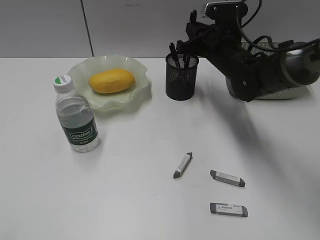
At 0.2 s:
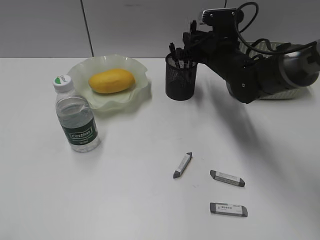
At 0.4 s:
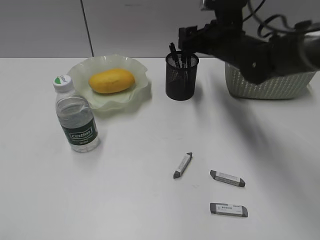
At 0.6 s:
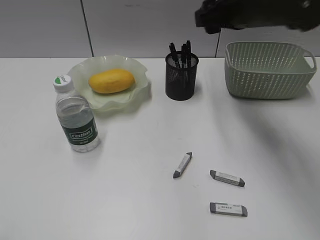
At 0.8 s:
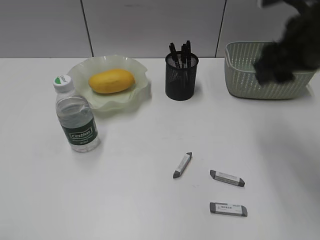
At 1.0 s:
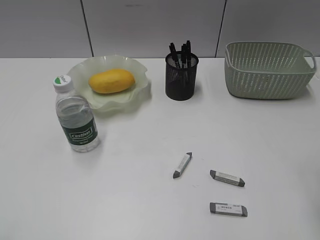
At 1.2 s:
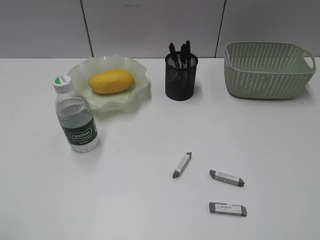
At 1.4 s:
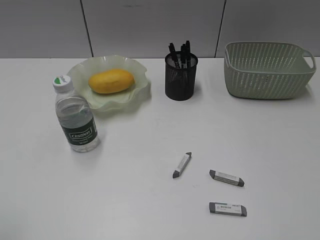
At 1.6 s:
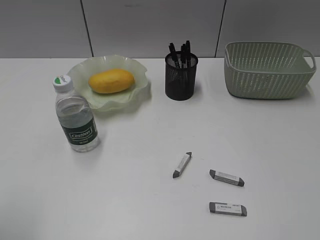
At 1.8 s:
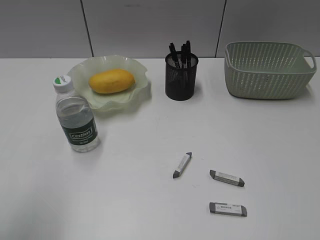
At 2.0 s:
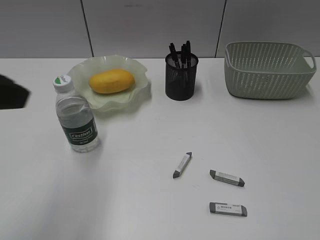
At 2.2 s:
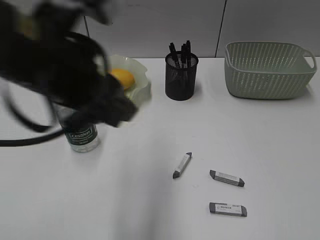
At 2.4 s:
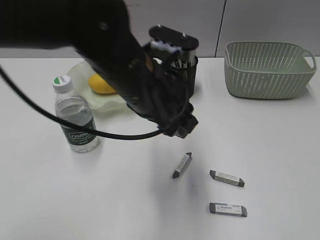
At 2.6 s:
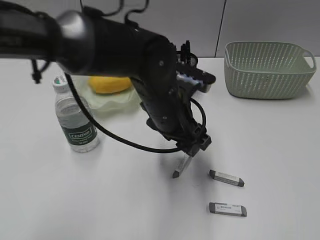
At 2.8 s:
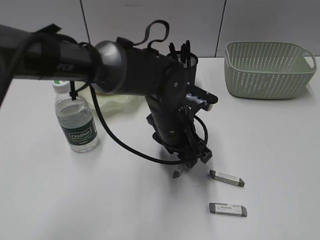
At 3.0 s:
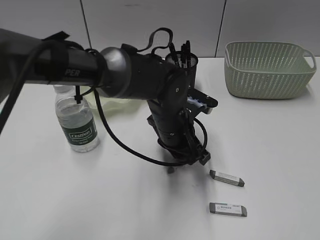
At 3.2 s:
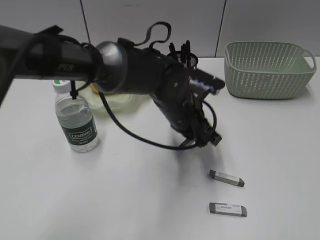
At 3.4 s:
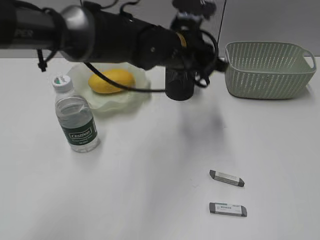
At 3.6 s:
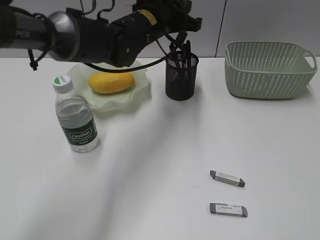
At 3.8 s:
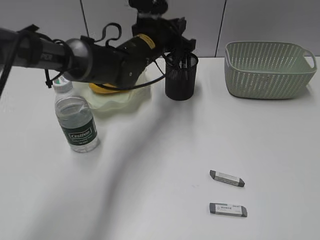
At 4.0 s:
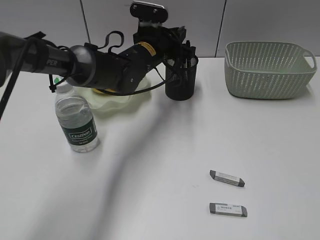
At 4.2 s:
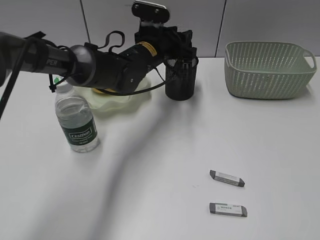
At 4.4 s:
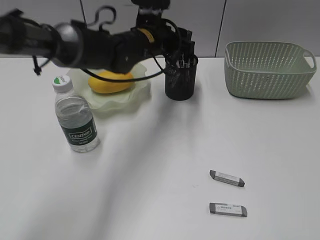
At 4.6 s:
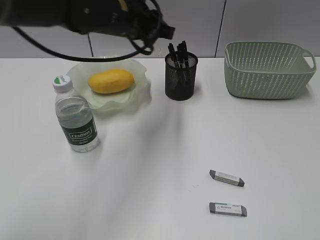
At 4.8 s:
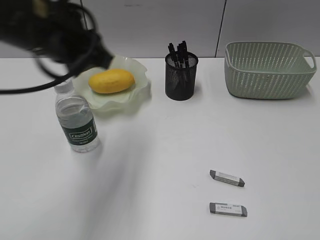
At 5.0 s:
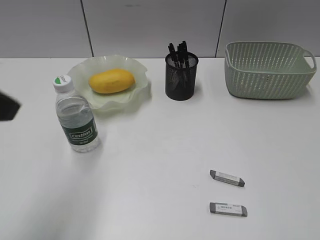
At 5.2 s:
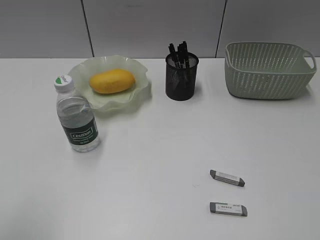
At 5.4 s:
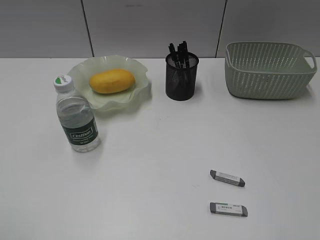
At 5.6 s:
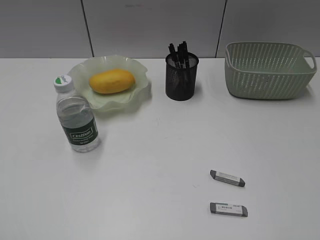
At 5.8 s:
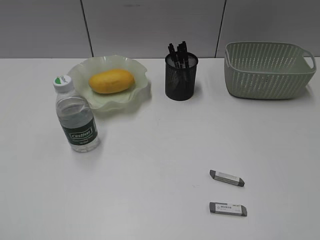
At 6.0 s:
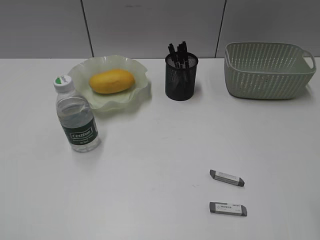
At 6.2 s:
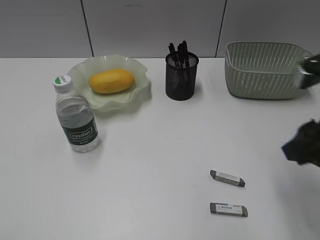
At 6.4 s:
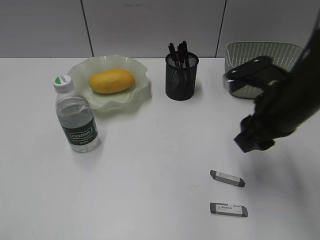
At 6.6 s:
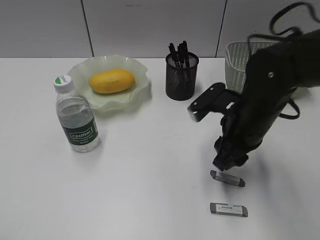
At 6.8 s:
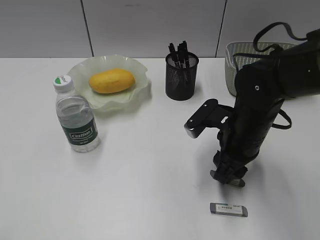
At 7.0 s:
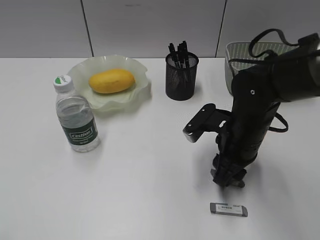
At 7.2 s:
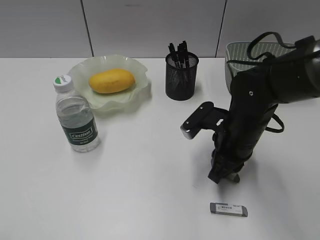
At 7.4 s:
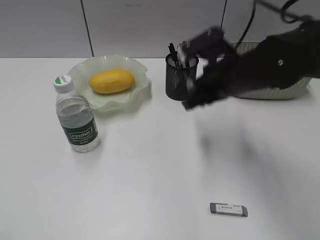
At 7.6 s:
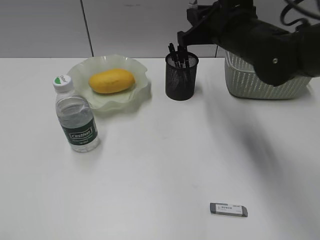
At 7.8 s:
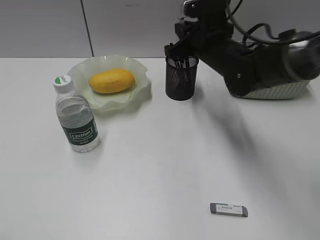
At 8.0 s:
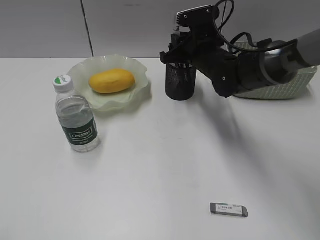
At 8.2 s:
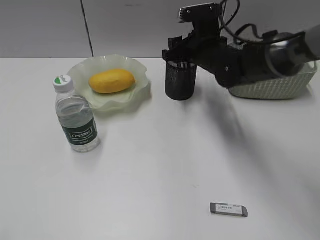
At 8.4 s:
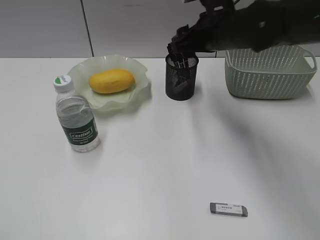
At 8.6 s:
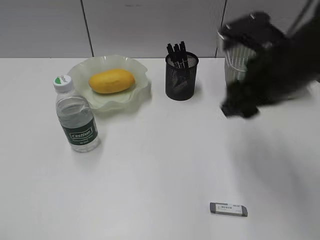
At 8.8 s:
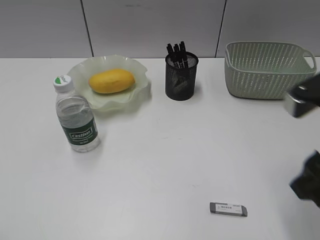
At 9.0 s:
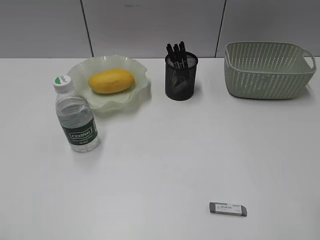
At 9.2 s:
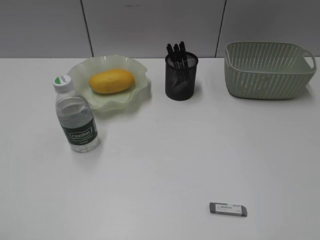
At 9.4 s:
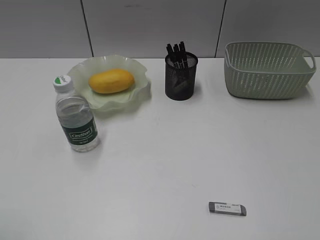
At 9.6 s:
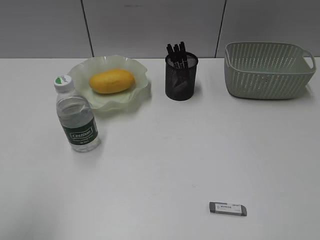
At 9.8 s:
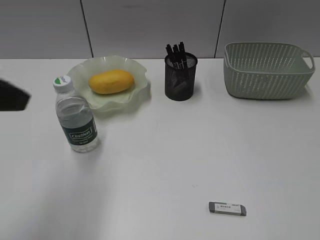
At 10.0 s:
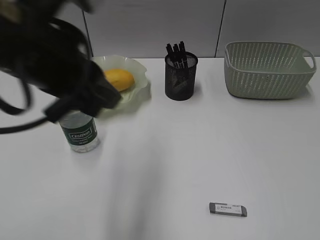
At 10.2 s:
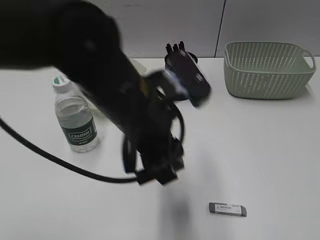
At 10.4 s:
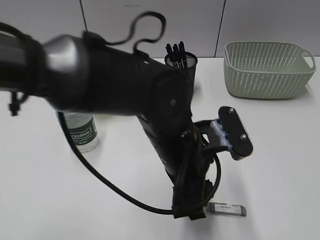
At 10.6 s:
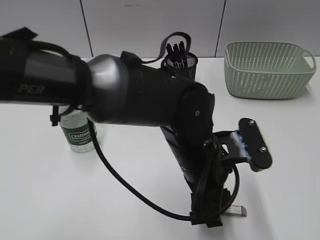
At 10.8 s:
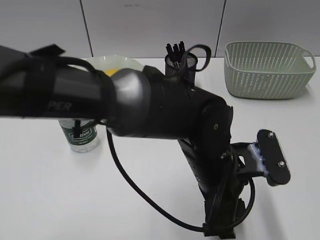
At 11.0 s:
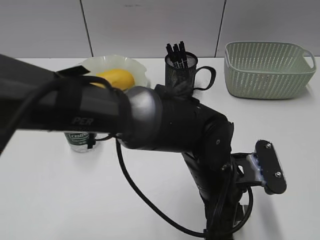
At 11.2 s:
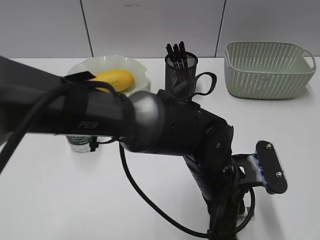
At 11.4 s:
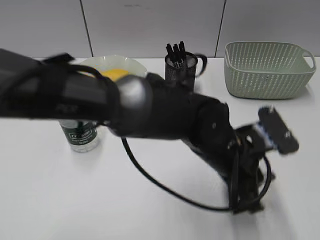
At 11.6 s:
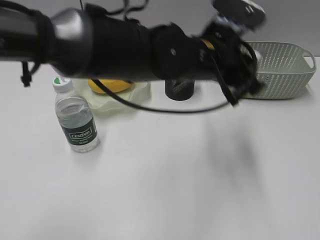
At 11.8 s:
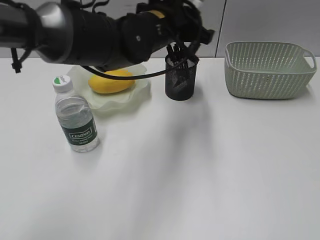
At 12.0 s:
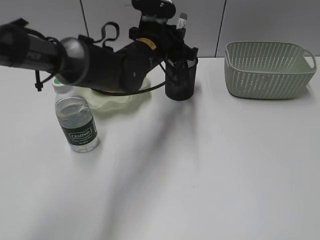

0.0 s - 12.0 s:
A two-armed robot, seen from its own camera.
Step, 0.6 s - 3.0 s: Grasp the eraser with left gripper.
Step, 3.2 s - 4.2 s: Place the eraser in pen holder with left gripper.
Step, 4.4 s - 7.2 s: Grasp the eraser with right gripper.
Step, 7.4 s - 8.4 s: Place the eraser in pen holder with right gripper.
Step, 8.6 s - 11.2 s: Grasp the eraser with left gripper.
0.0 s - 1.6 s: The left gripper heads forward, covering roughly 5 cm. The right gripper goes some 50 cm backward and to the right, and opens its fingers.
1.6 s - 3.0 s: The left gripper is displaced to the right, forward and downward by approximately 40 cm.
3.0 s - 4.4 s: The left gripper travels forward and upward by some 15 cm, and opens up.
4.4 s - 6.0 s: The right gripper travels forward by roughly 5 cm; the left gripper moves backward and to the left, about 50 cm.
6.0 s - 7.6 s: The right gripper goes approximately 35 cm forward and to the left, and closes up.
7.6 s - 9.0 s: The right gripper is displaced backward and to the right by about 30 cm, and opens.
9.0 s - 10.4 s: The right gripper is displaced backward and to the right by some 10 cm. Meanwhile the left gripper is displaced to the right and forward by some 40 cm.
10.4 s - 12.0 s: The left gripper shifts some 20 cm forward, and closes its fingers.

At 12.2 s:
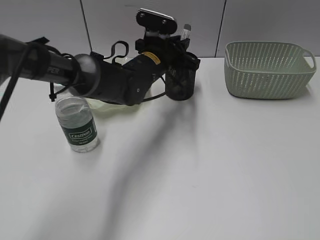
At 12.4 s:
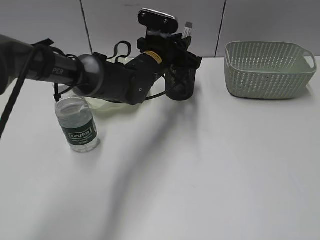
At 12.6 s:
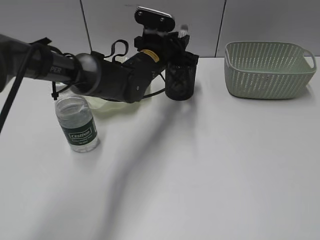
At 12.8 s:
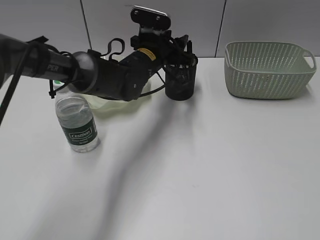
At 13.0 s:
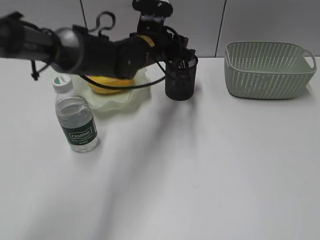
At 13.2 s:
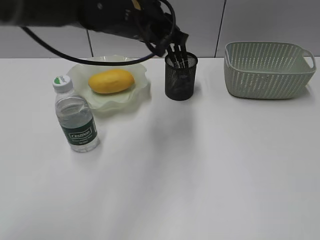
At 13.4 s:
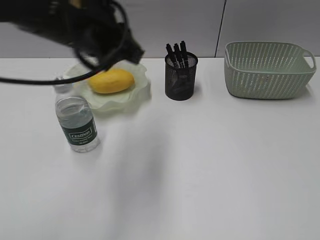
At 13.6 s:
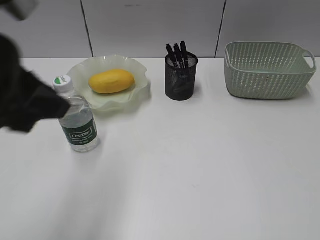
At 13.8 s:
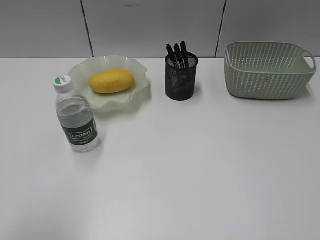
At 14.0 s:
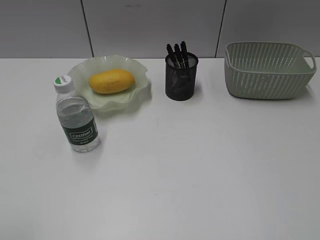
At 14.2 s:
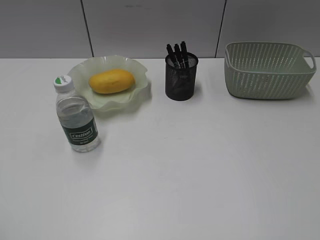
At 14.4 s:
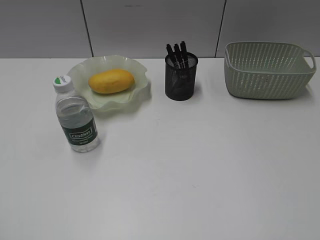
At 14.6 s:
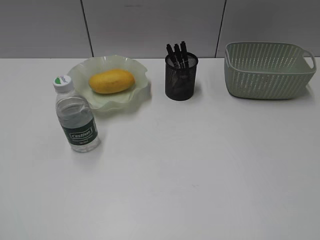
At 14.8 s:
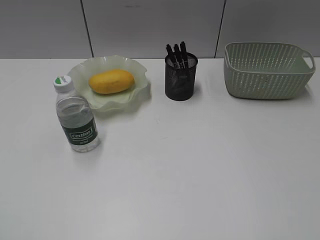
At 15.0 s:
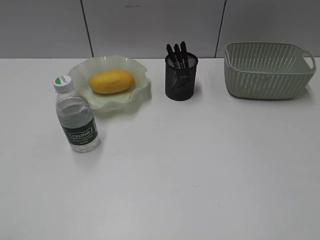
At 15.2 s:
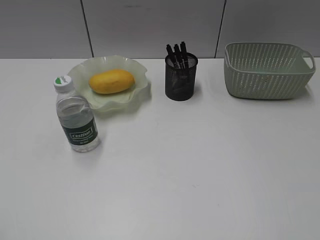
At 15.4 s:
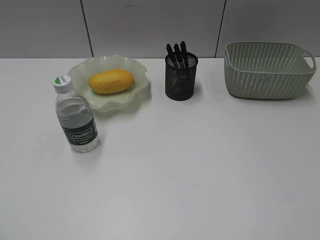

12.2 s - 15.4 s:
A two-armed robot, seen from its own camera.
12.2 s - 13.8 s: The left gripper is displaced backward, to the left and upward by roughly 40 cm, and opens.

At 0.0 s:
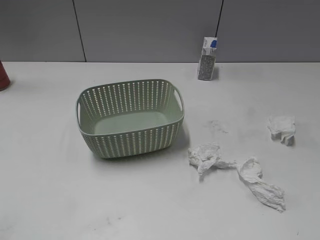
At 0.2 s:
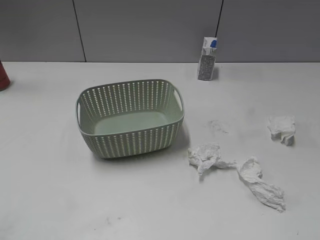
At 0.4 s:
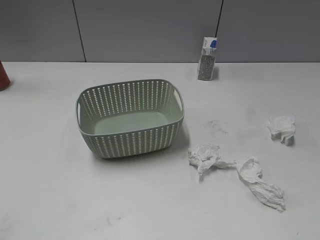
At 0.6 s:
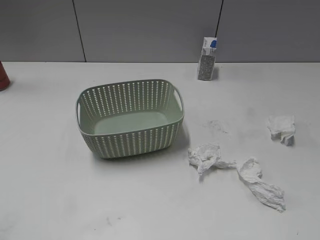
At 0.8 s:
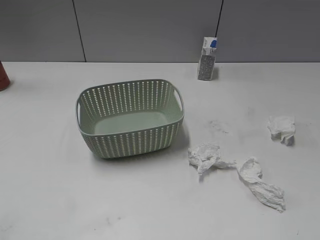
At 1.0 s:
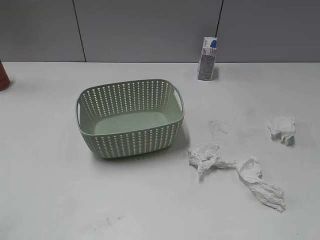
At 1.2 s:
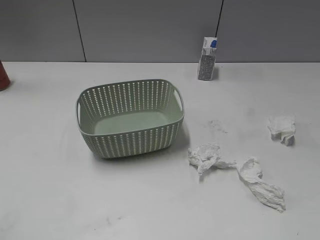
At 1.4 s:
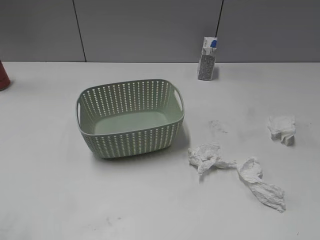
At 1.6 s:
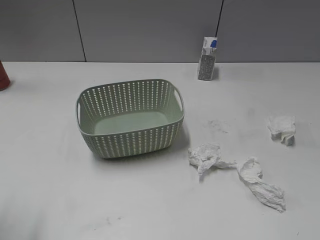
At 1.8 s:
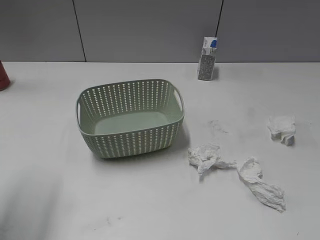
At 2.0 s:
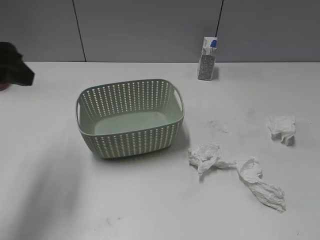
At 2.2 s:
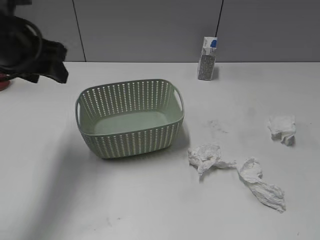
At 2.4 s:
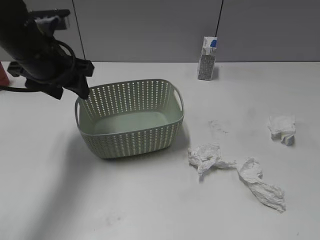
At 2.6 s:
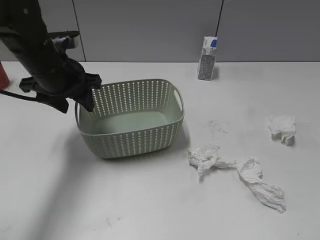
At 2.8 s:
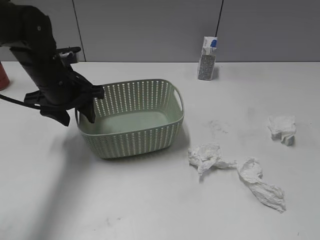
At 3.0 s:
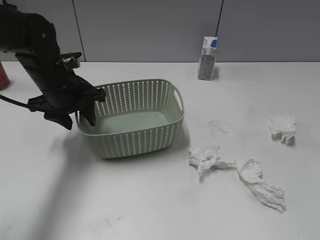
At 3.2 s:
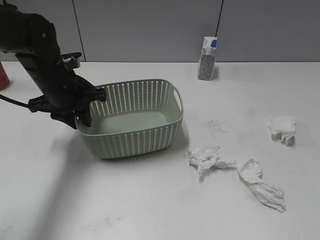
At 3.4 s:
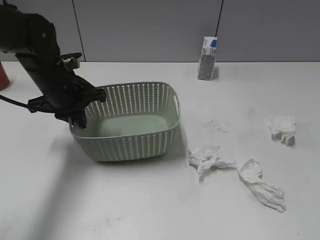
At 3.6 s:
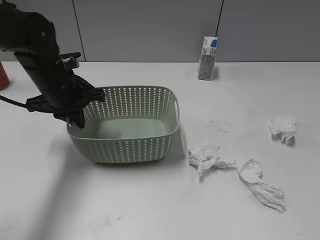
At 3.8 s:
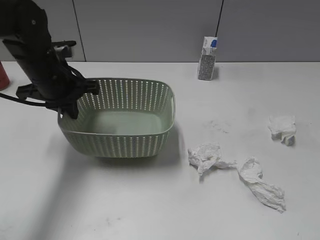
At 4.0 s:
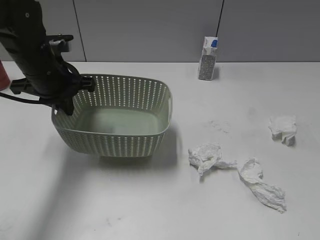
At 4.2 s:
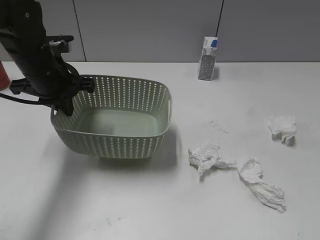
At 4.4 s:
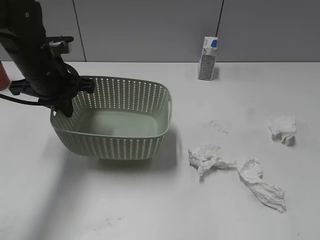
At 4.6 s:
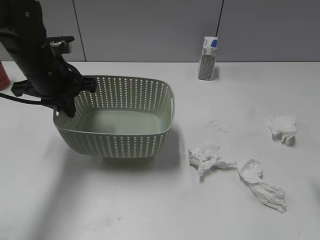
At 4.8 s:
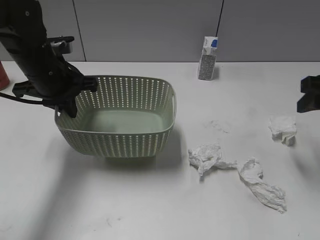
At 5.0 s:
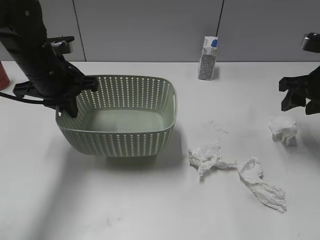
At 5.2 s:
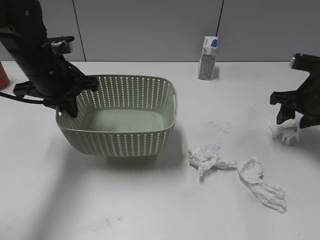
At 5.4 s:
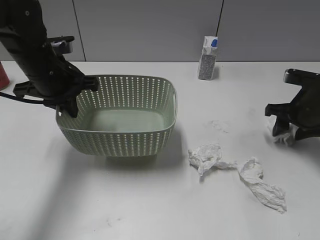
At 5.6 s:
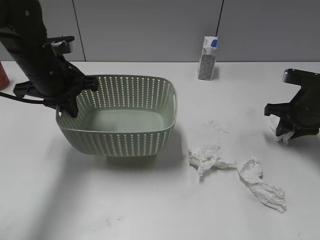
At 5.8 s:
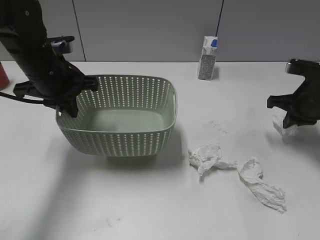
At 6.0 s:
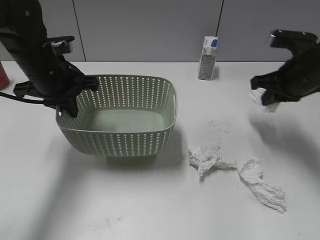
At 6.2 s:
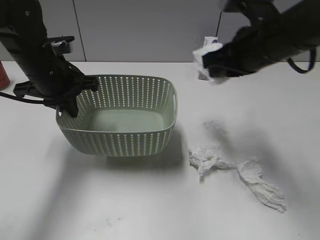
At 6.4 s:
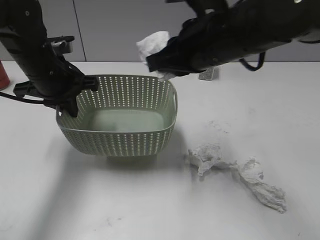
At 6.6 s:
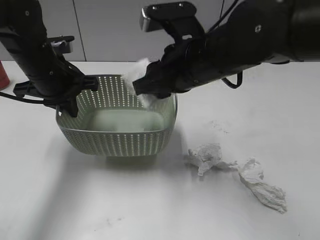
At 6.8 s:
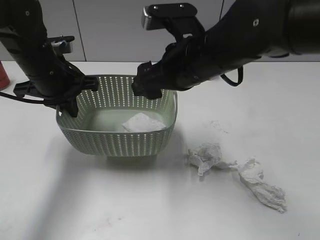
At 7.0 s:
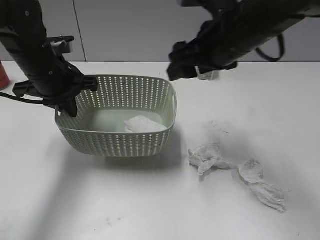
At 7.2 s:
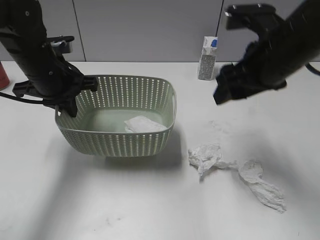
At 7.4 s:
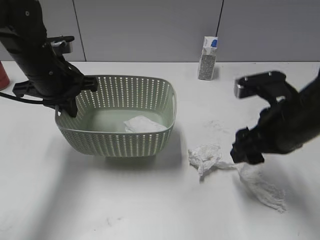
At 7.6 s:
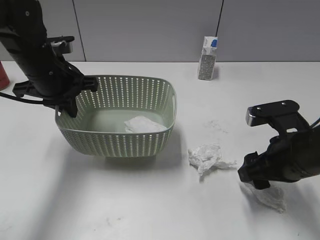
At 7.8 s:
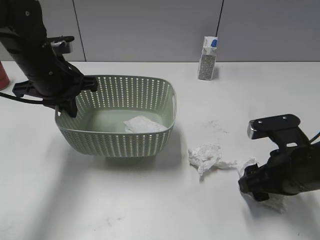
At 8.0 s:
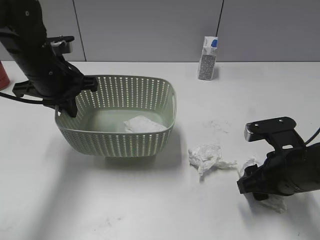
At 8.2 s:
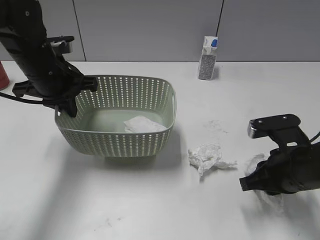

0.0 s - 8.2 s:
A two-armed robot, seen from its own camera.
Step, 1.8 s - 3.6 s: Grasp the basket with left gripper.
Step, 4.6 s - 5.8 s: Grasp the waste paper with right gripper.
Step, 6.0 s - 6.8 s: Place the waste paper in the basket with right gripper.
1.6 s - 3.2 s: The left gripper heads forward, downward and to the right, covering about 30 cm.
3.2 s - 5.0 s: The right gripper heads forward, covering approximately 35 cm, while the left gripper closes up.
5.0 s - 6.6 s: The right gripper shifts approximately 25 cm to the left, and closes, then reopens.
6.6 s - 8.2 s: The right gripper moves to the right, downward and backward, about 20 cm, and opens, then closes once more.
